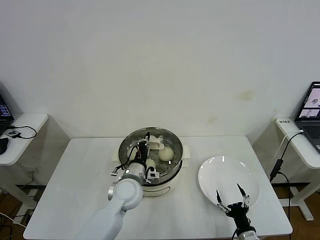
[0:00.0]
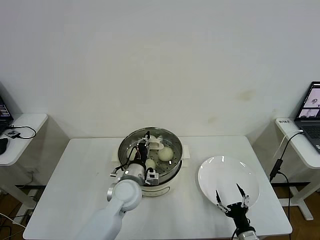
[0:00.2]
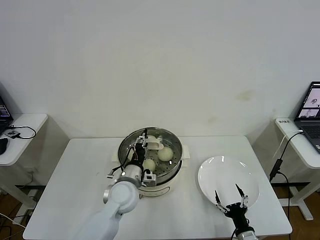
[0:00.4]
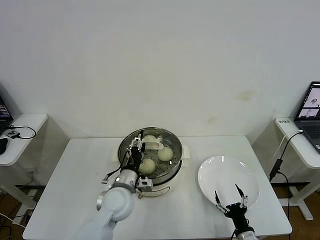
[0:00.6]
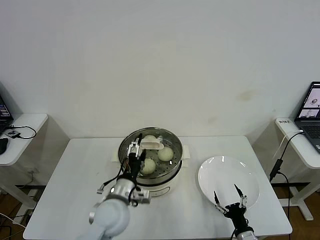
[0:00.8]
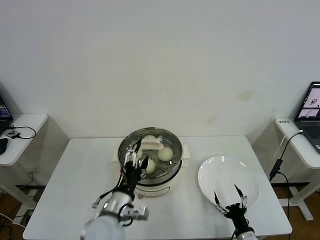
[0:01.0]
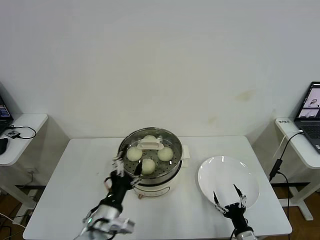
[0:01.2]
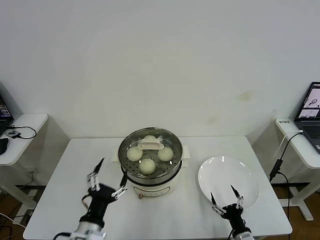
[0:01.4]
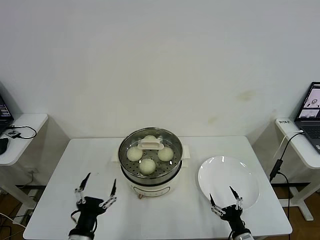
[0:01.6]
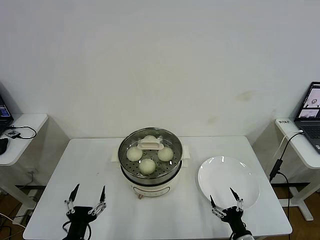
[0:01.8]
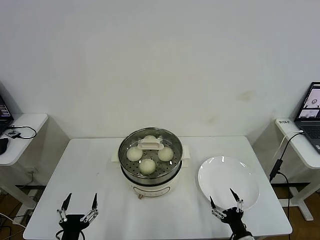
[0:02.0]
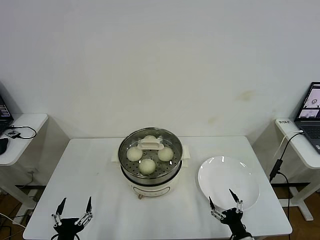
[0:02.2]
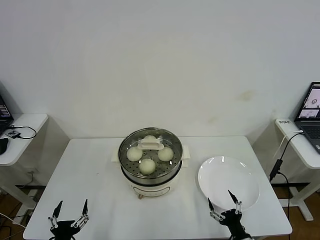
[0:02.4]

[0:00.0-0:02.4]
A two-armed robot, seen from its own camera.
0:00.0 to 0:01.2: The left gripper heads backward, covering about 15 cm, and opens up.
0:01.2 to 0:02.4: The left gripper travels to the left, downward and backward by approximately 20 cm.

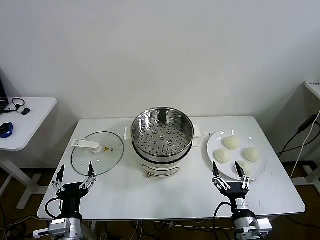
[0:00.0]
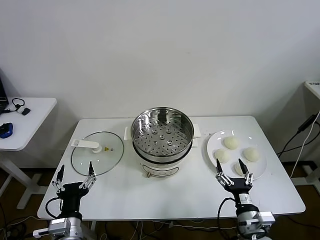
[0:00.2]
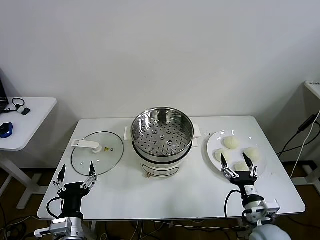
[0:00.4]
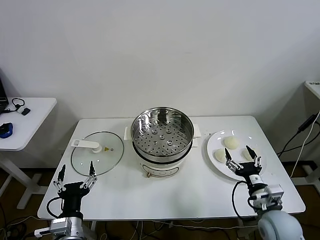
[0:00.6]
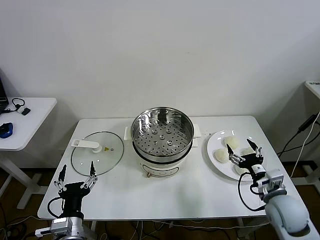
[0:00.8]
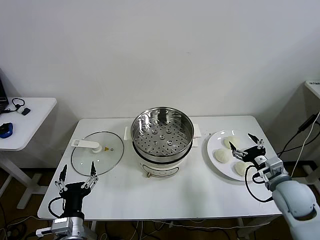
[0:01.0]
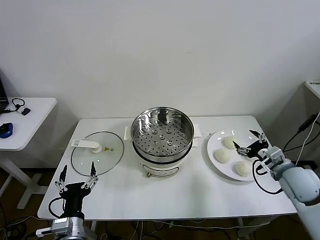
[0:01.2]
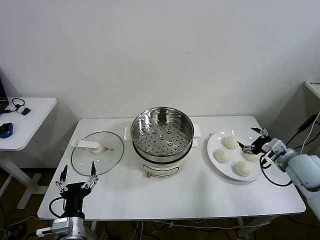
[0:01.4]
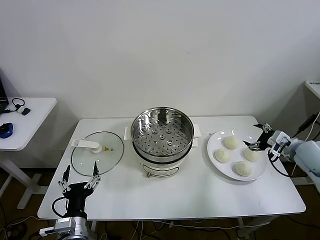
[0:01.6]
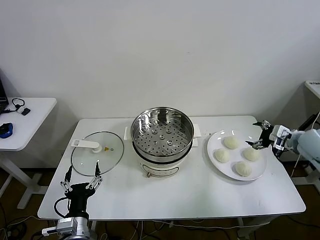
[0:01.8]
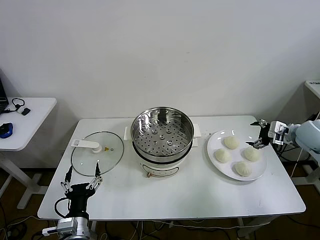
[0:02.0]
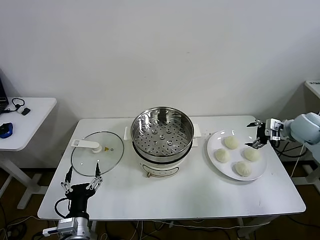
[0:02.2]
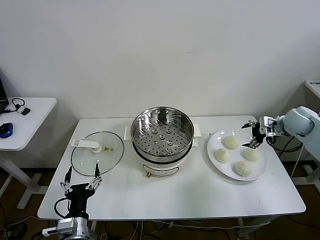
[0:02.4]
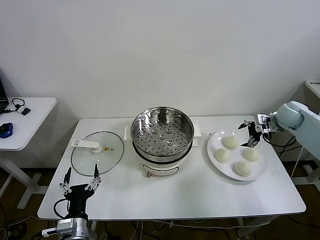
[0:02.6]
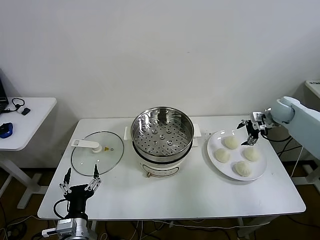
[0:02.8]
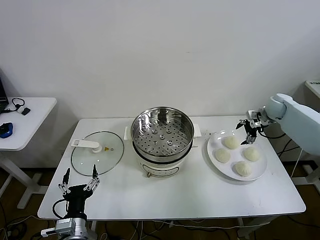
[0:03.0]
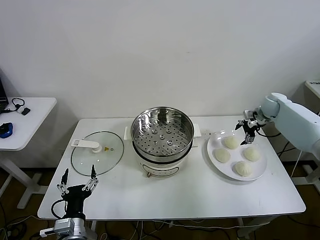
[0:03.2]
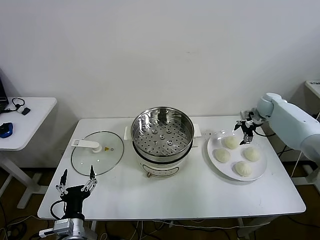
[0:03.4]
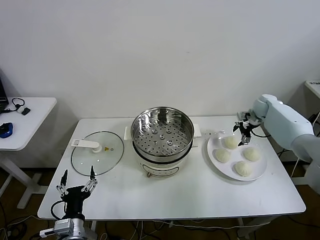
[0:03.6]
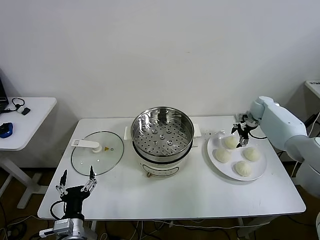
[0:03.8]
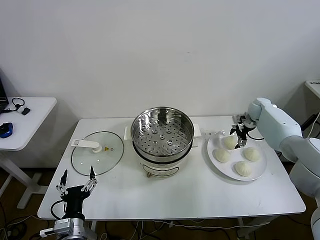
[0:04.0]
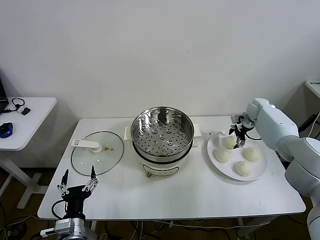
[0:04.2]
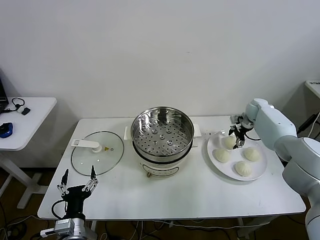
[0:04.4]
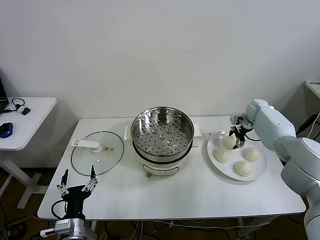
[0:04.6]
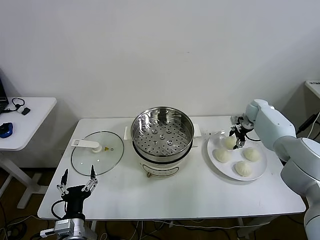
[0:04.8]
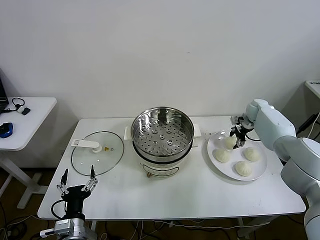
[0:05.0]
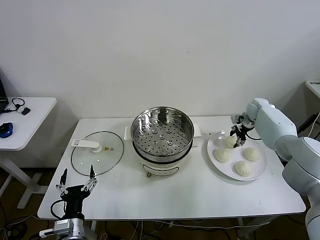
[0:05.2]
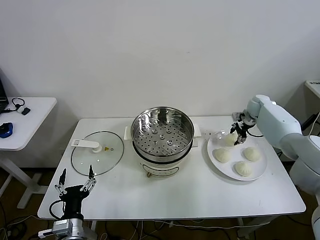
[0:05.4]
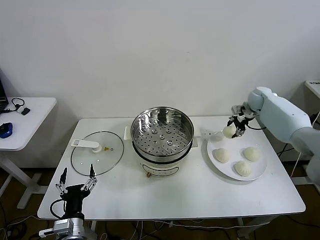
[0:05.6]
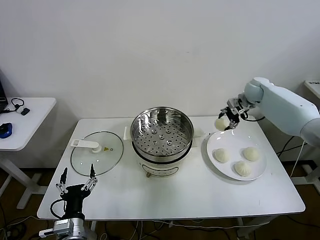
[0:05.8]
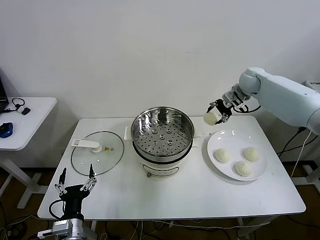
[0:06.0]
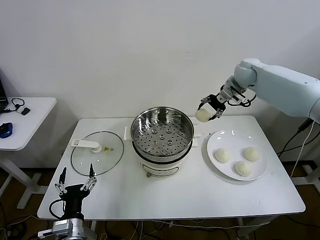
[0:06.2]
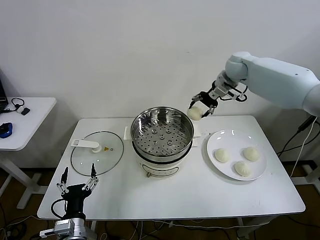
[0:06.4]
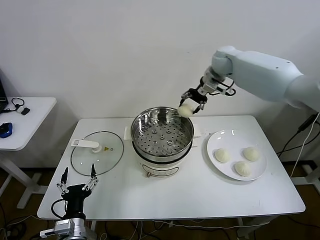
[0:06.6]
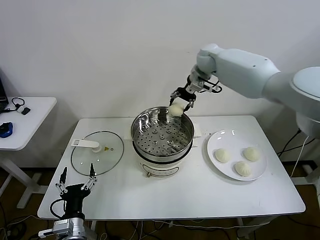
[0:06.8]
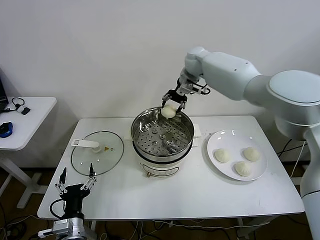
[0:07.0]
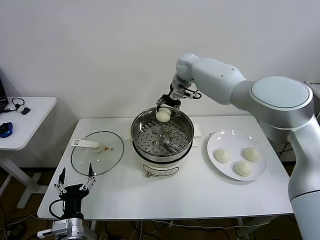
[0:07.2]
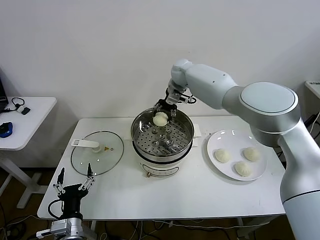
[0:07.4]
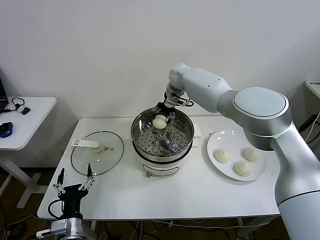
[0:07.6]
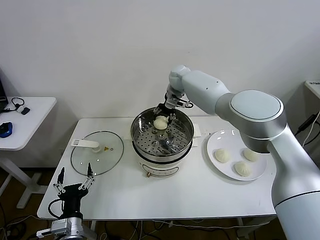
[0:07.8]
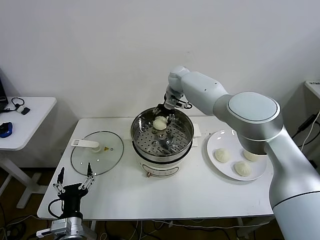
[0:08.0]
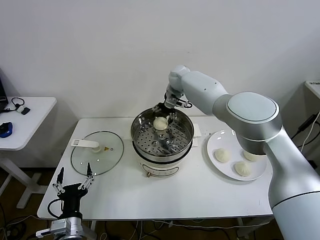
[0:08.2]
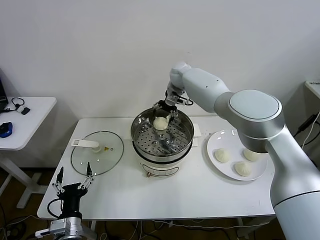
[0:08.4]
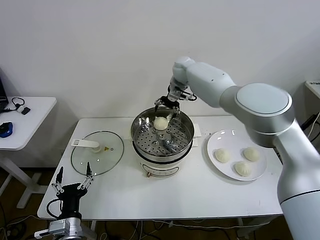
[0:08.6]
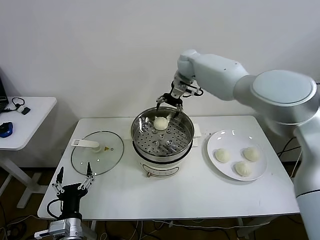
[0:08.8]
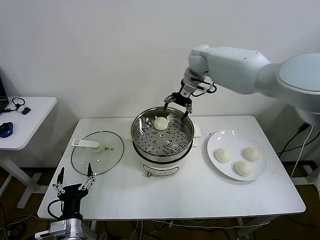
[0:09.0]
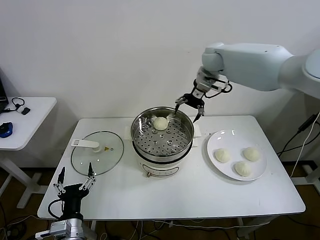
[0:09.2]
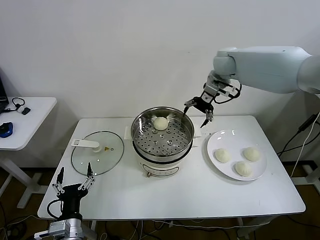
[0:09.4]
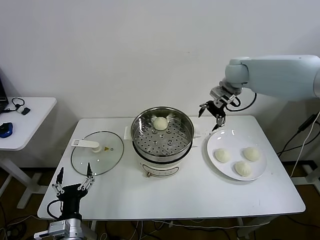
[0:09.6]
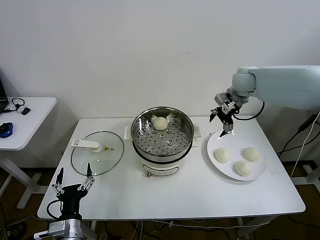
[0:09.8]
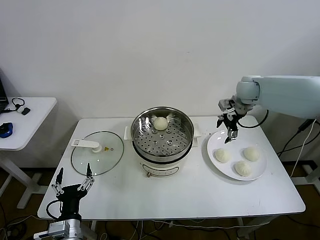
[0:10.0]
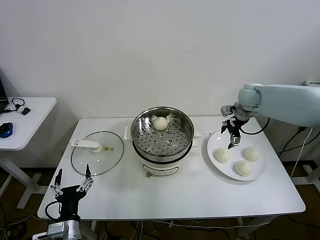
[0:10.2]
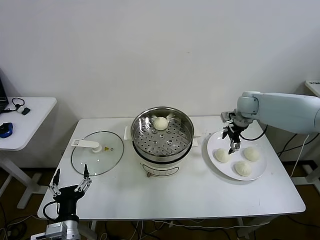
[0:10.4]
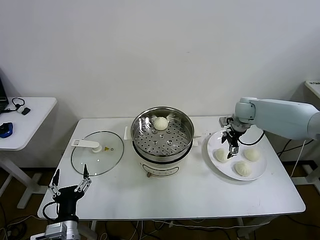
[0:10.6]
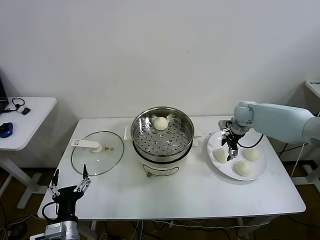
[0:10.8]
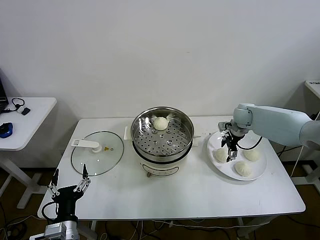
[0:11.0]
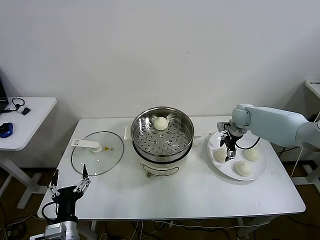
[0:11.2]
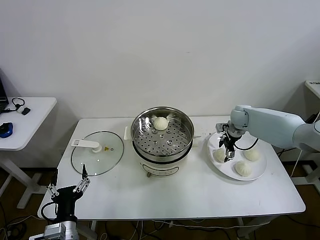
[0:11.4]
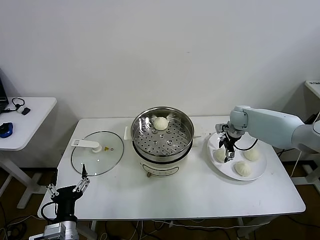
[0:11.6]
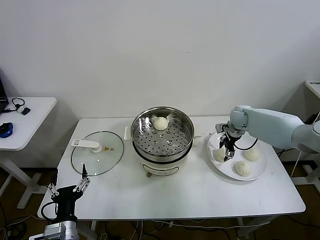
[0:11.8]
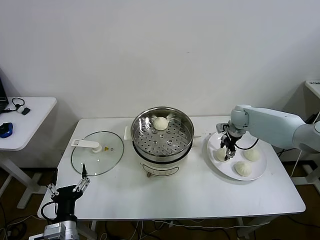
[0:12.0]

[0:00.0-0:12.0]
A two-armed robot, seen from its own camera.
Step, 0:00.0 to 0:05.2: Grasp the baozi in the plate with right gripper.
Step, 0:05.4 to 0:08.4: Place the baozi on the steamer with right gripper.
Step, 0:08.6 to 0:11.8: Grasp the baozi in the plate with right gripper.
0:01.6 to 0:03.0: The right gripper travels forward by about 20 cm.
0:03.0 to 0:04.4: The right gripper moves downward, roughly 5 cm.
0:04.4 to 0:06.0: The right gripper heads upward and to the left, covering some 20 cm, and closes.
0:06.0 to 0:07.6: The right gripper shifts about 25 cm to the left.
0:07.6 to 0:09.0: The right gripper is displaced upward and to the right by approximately 10 cm, and opens.
0:09.0 to 0:10.4: The right gripper moves to the right, downward and backward, some 25 cm.
0:10.4 to 0:12.0: The right gripper travels downward by some 5 cm, and closes.

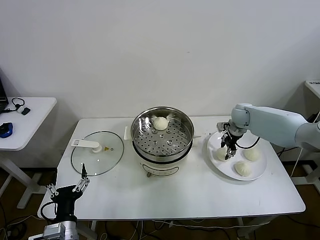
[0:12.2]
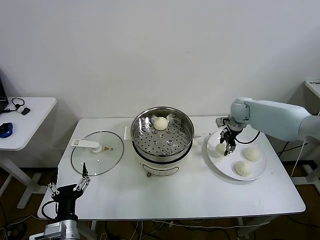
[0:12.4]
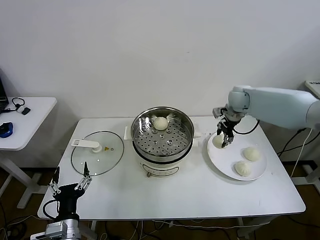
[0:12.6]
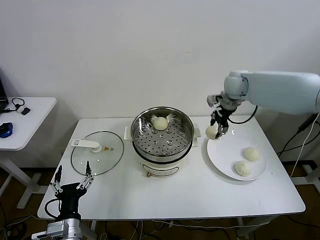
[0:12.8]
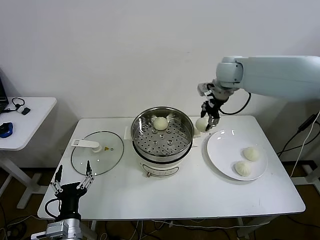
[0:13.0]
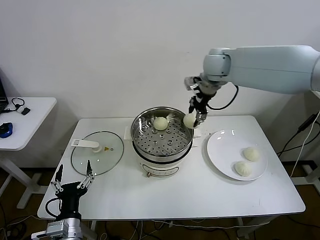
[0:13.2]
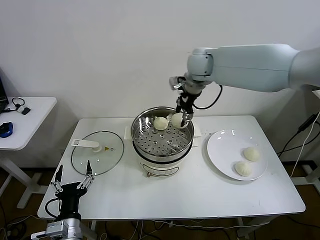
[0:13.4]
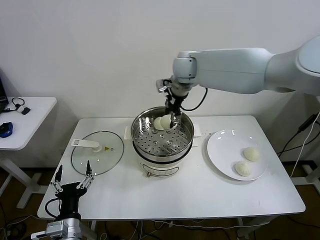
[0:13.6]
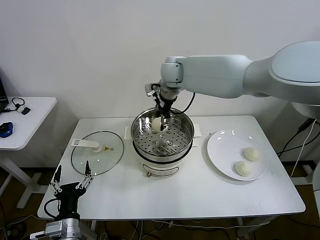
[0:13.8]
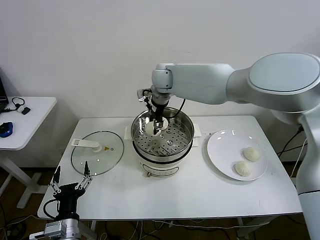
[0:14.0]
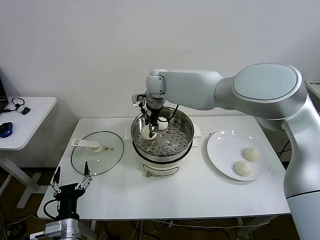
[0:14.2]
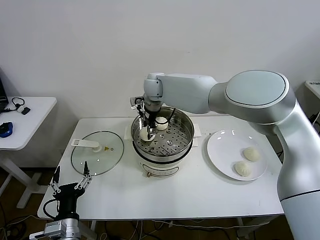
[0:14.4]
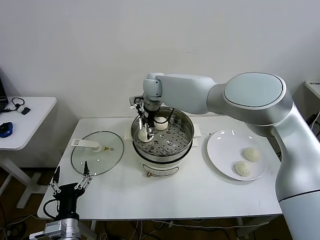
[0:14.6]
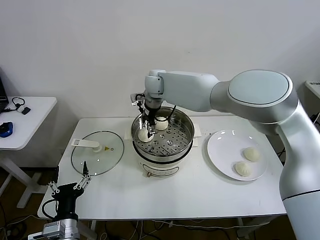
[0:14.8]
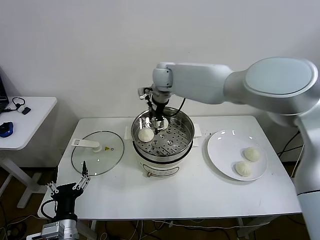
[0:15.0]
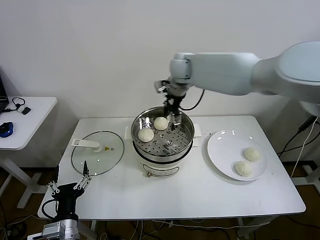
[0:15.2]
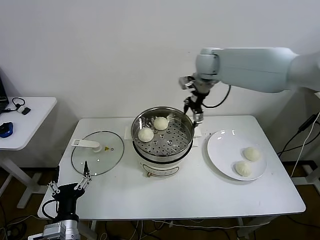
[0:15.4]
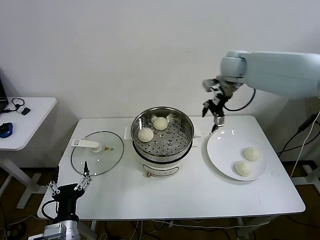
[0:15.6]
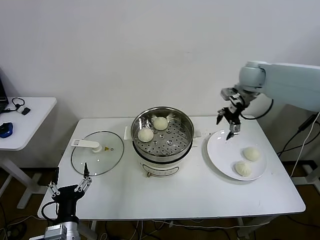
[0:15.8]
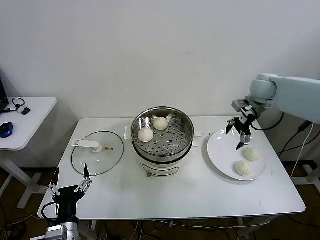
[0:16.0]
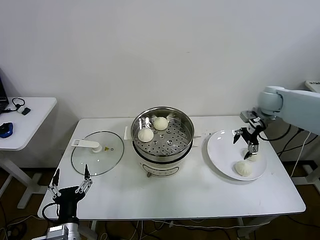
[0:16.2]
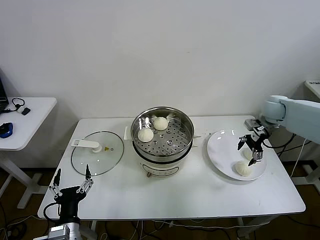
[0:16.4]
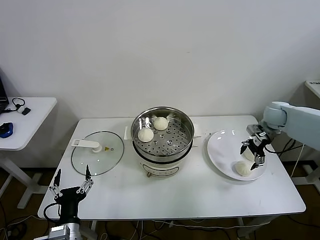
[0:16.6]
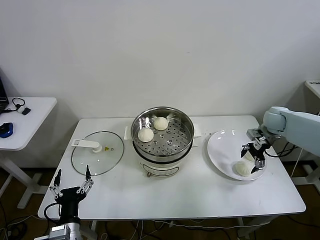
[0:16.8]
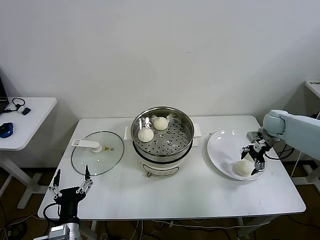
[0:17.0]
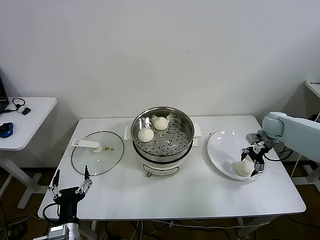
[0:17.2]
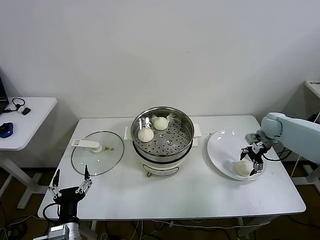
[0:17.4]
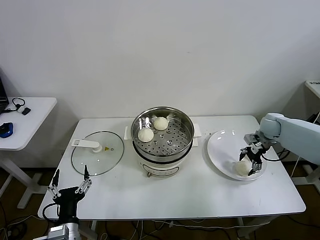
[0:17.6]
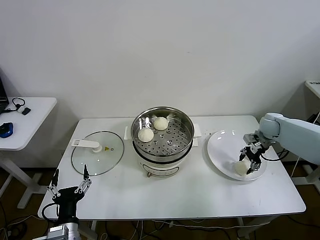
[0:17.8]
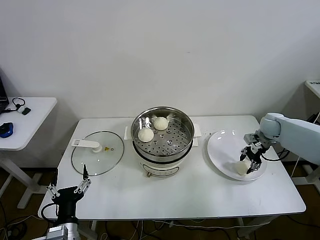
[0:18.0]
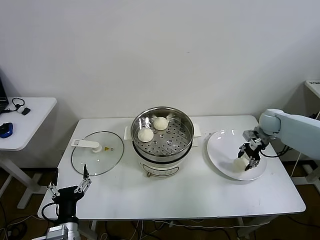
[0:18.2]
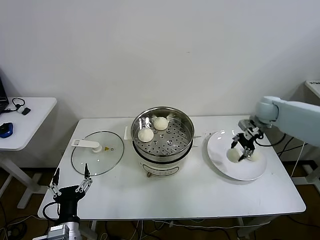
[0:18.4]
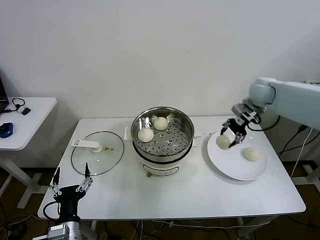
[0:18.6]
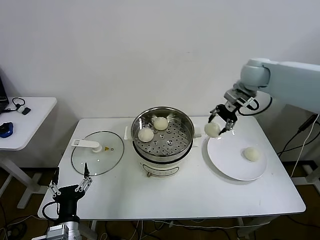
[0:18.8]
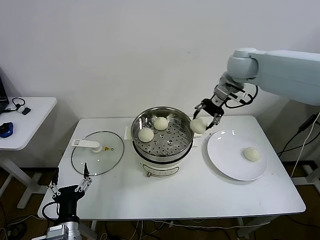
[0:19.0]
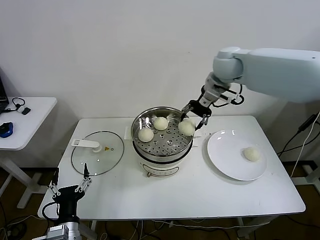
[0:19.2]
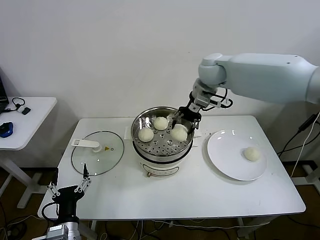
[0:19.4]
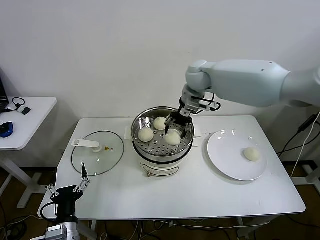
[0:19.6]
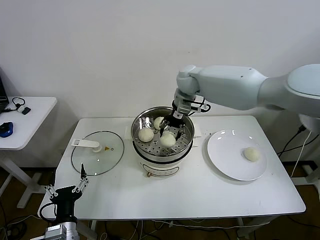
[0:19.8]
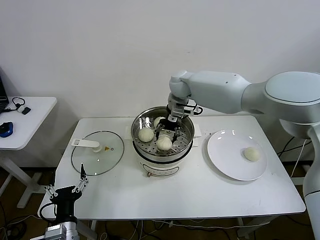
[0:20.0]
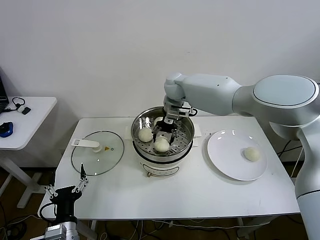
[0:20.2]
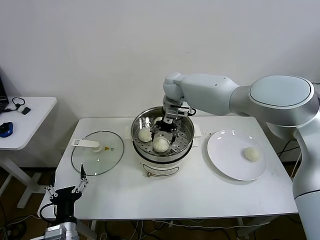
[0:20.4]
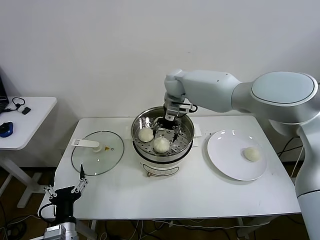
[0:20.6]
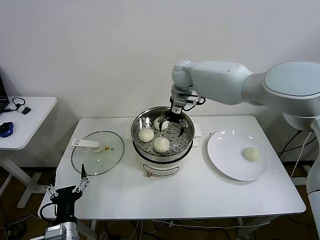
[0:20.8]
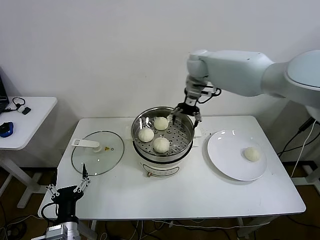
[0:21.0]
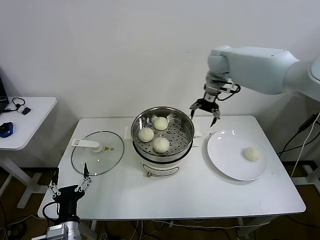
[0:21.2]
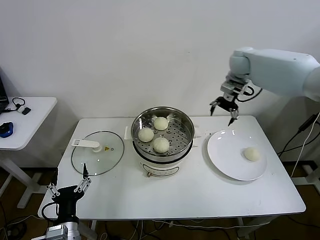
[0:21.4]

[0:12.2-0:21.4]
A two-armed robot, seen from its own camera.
Step, 0:12.2 to 0:15.0: Place the baozi on the steamer with right gripper.
Step, 0:15.2 to 0:18.0: Grasp the baozi in the plate with right gripper.
Step, 0:18.2 to 0:20.6: Place the baozi on the steamer with right gripper.
0:12.2 to 0:13.8: The right gripper is displaced to the left and upward by roughly 35 cm.
0:13.8 to 0:15.2: The right gripper opens.
0:15.2 to 0:16.8: The right gripper goes roughly 40 cm to the right and downward.
0:16.8 to 0:18.4: The right gripper ends up some 5 cm from where it was, and closes up.
0:18.4 to 0:19.8: The right gripper shifts roughly 30 cm to the left.
0:19.8 to 0:21.4: The right gripper goes roughly 20 cm to the right, and opens up.
